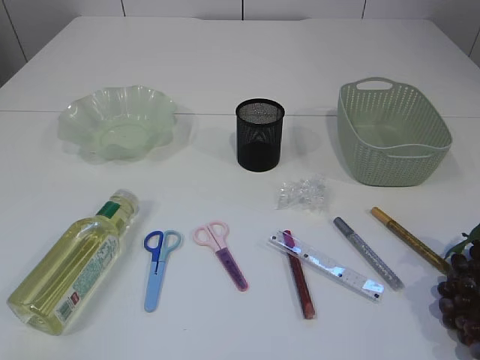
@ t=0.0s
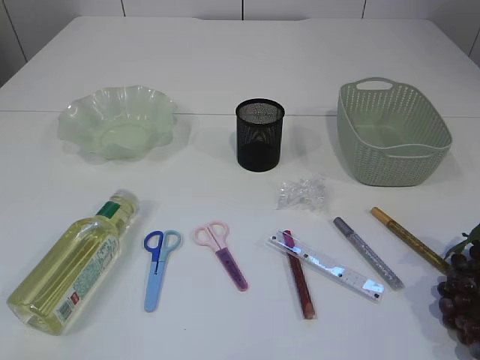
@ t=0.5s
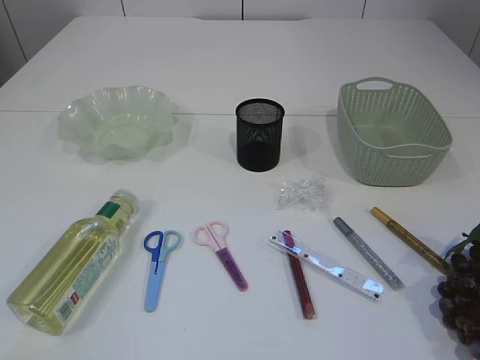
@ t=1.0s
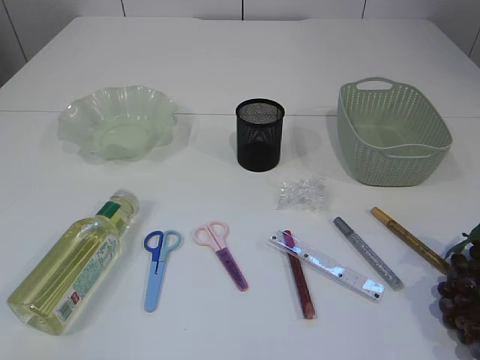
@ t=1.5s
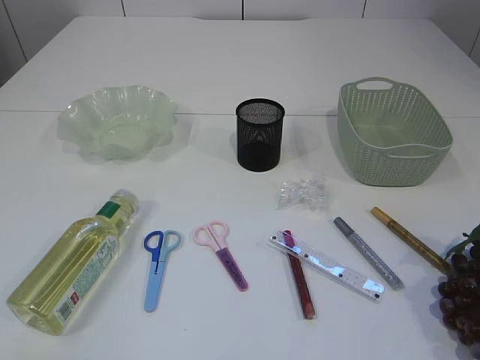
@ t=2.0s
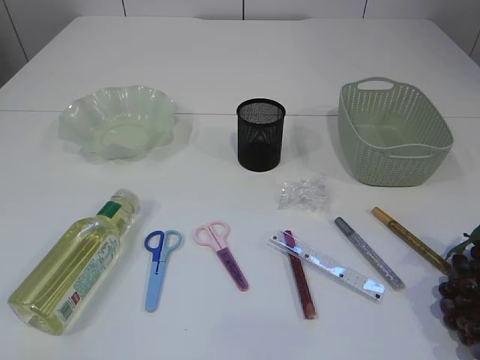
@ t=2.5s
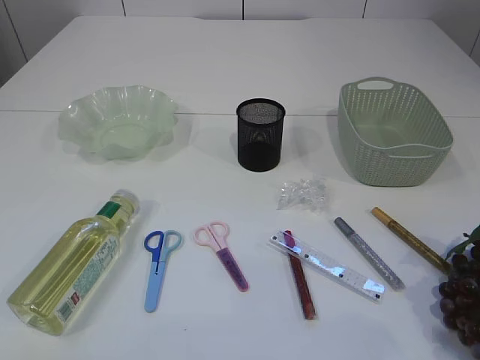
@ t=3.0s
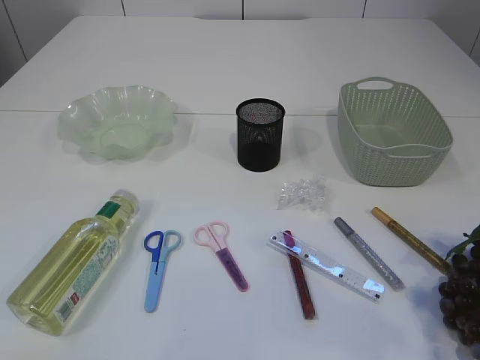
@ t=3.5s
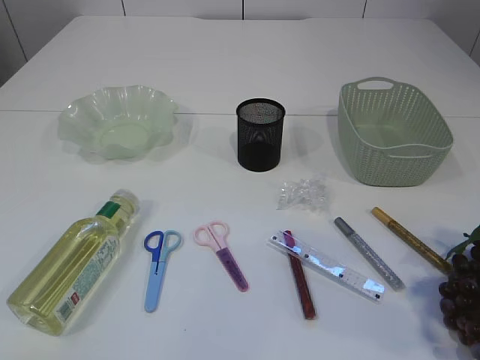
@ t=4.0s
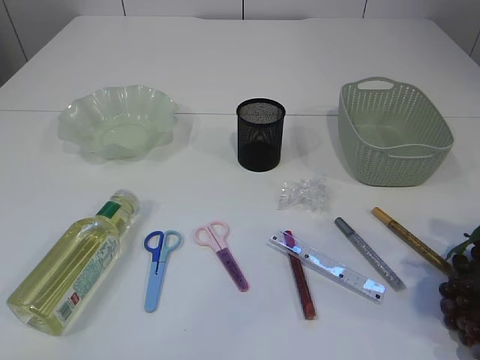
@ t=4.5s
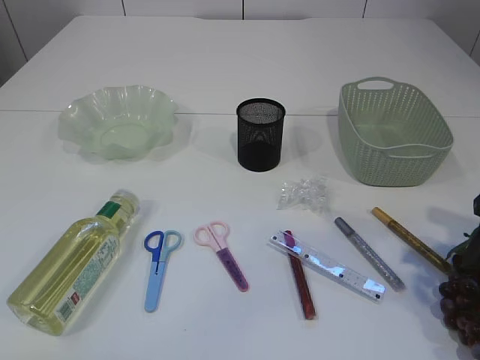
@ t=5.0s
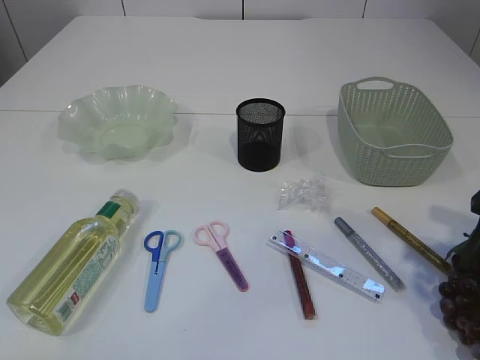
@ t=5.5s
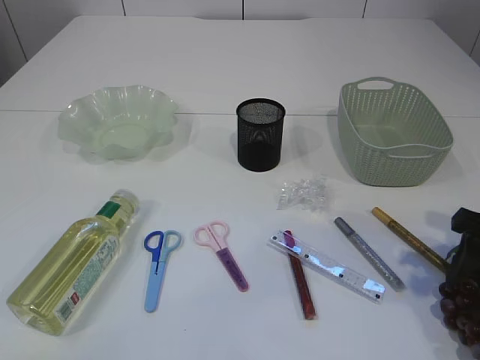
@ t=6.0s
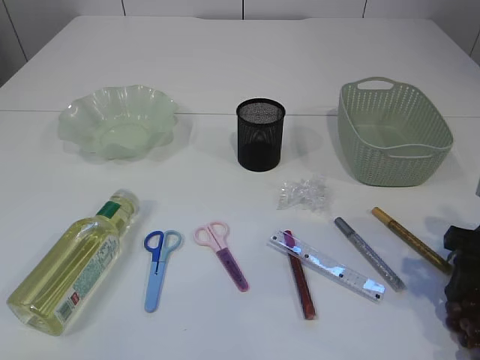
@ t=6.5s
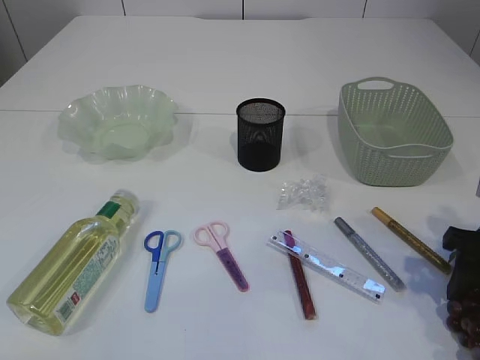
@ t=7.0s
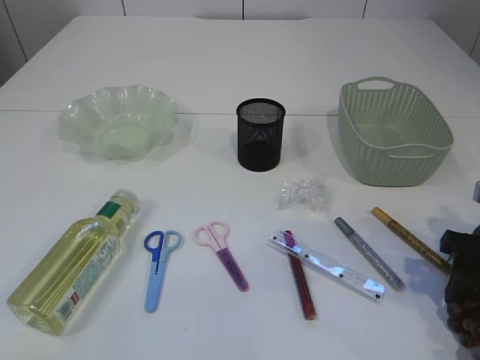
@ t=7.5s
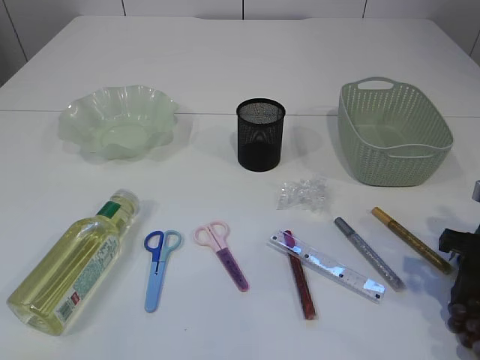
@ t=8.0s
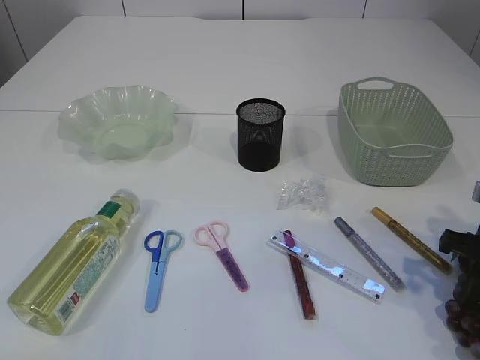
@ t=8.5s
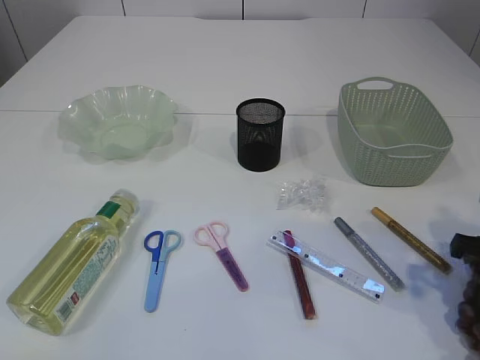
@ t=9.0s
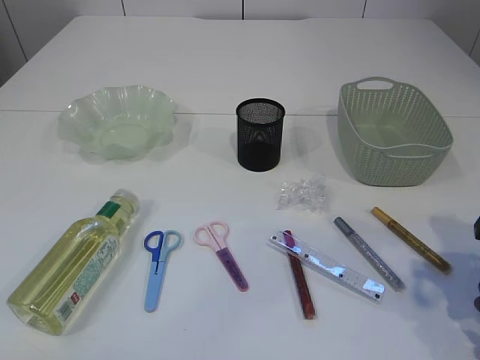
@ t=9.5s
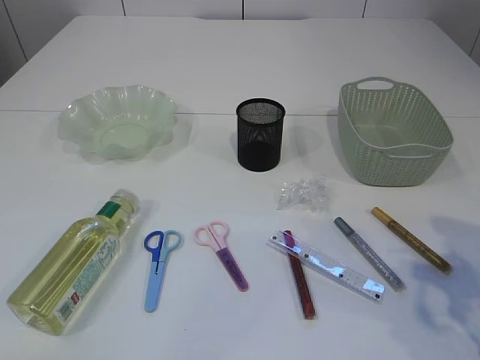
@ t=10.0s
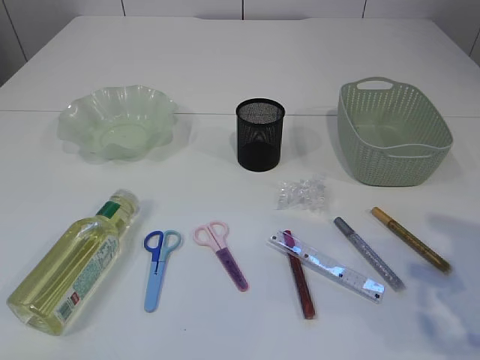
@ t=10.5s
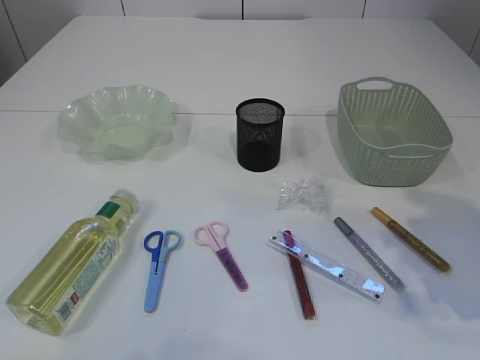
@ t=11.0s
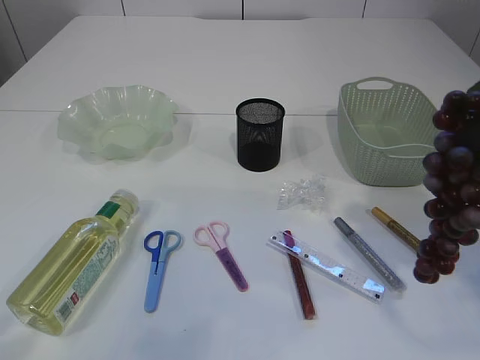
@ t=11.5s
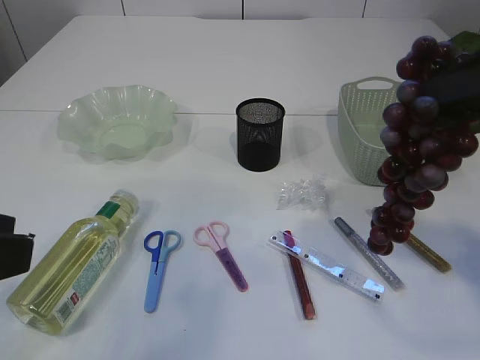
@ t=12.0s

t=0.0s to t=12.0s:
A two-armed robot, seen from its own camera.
Step, t=0.0s to t=10.5s: Pick up the grapes.
t=2.0s to t=4.0s: The right gripper is displaced forward by about 20 cm.
t=4.0s to t=6.0s: The right gripper goes about 10 cm downward and forward.
t=6.0s to t=8.0s: The grippers move only a little.
t=8.0s to t=10.0s: The right gripper heads upward, covering roughly 10 cm, and closes up.
t=10.0s to t=12.0s: The right gripper travels upward and to the left by roughly 15 cm; the left gripper heads forward and to the right, covering roughly 15 cm.

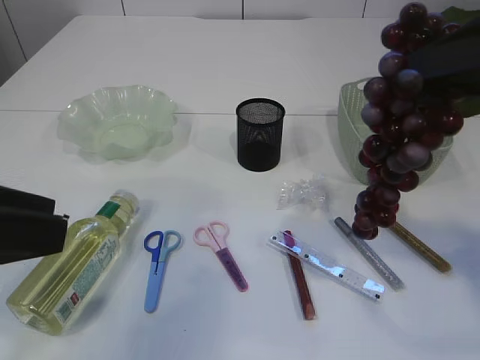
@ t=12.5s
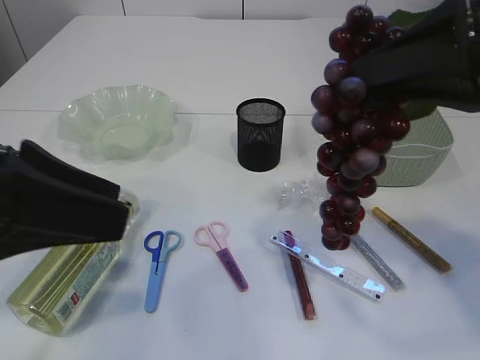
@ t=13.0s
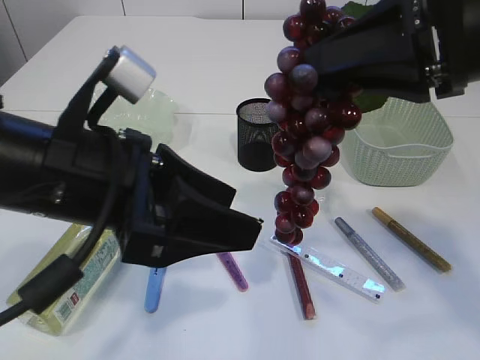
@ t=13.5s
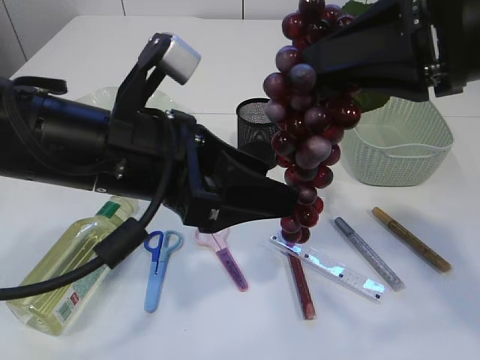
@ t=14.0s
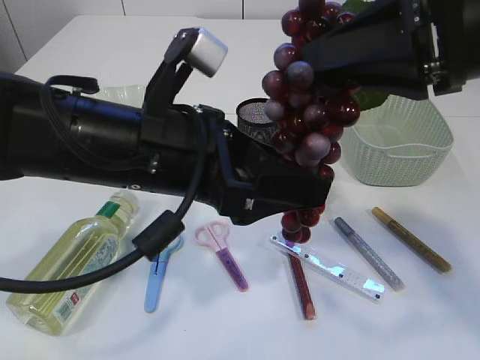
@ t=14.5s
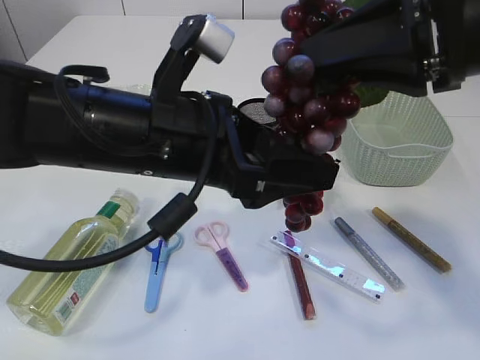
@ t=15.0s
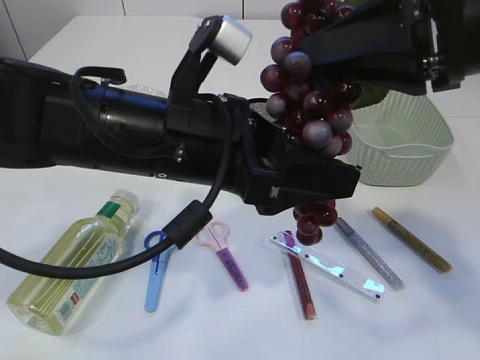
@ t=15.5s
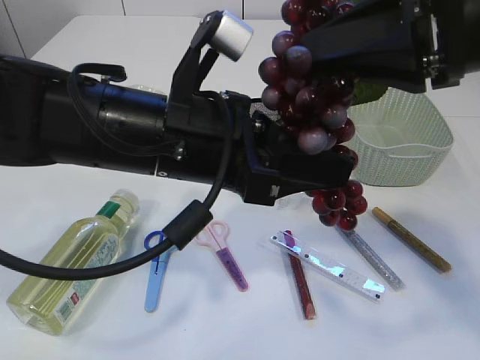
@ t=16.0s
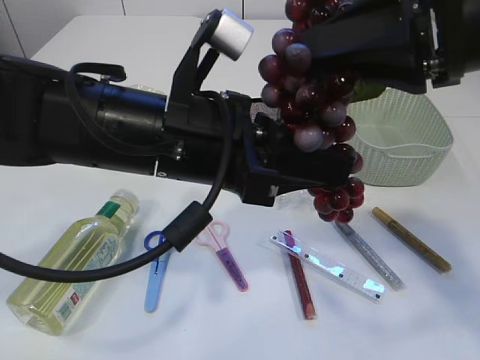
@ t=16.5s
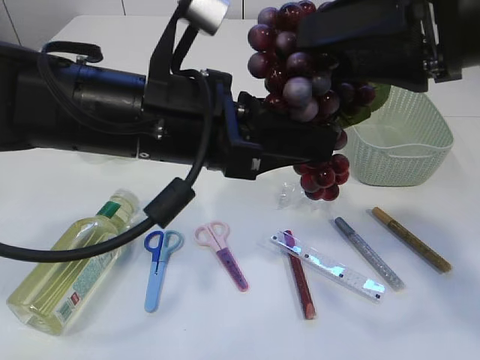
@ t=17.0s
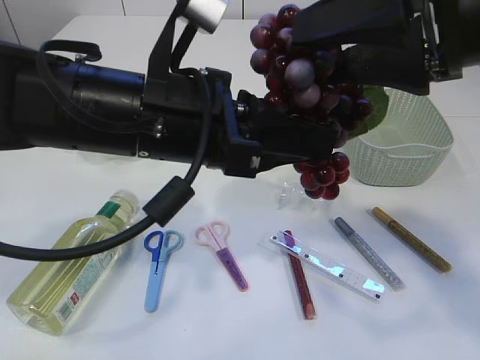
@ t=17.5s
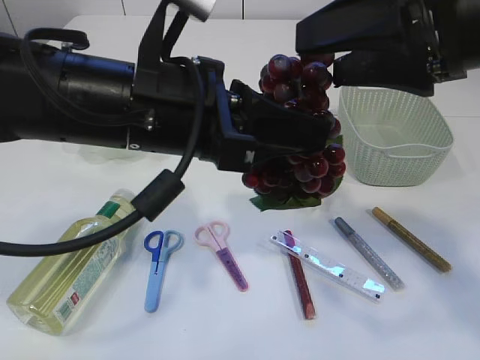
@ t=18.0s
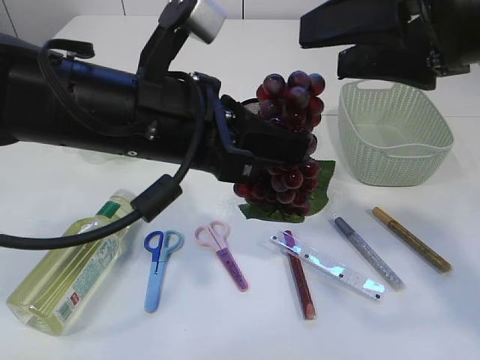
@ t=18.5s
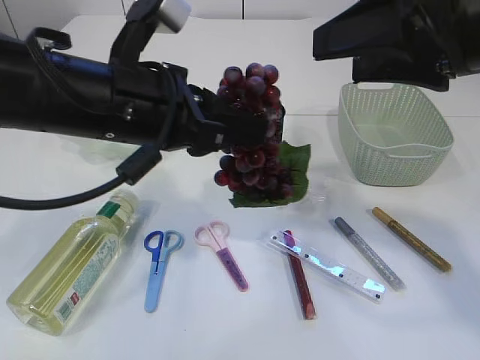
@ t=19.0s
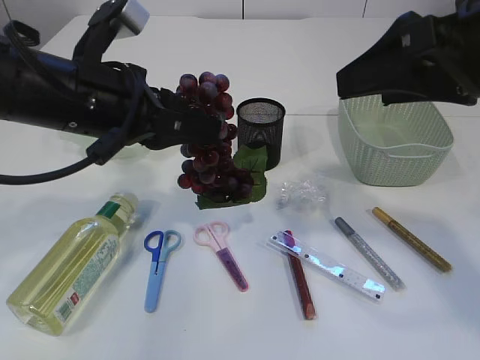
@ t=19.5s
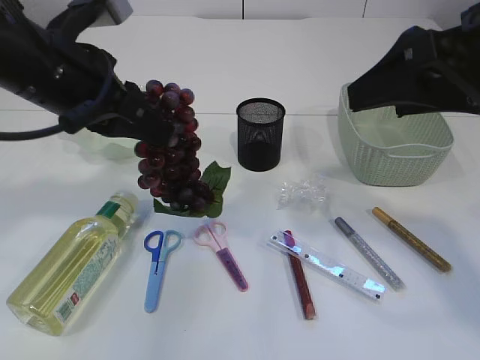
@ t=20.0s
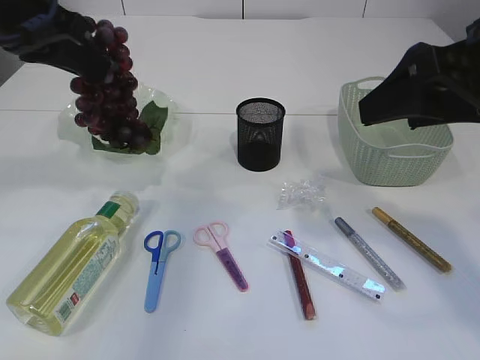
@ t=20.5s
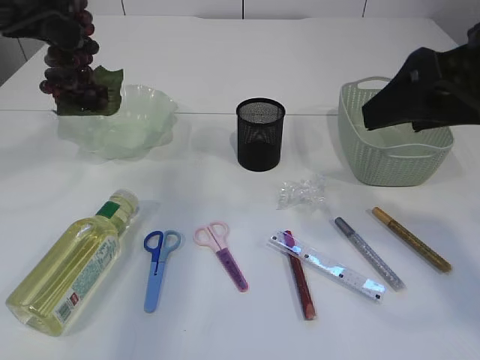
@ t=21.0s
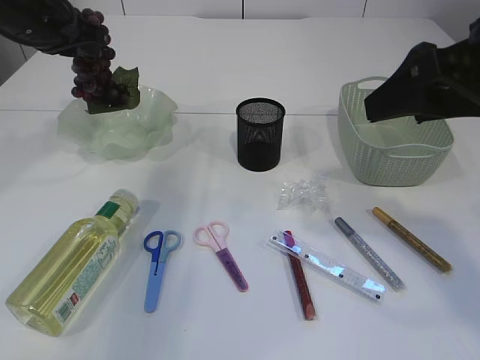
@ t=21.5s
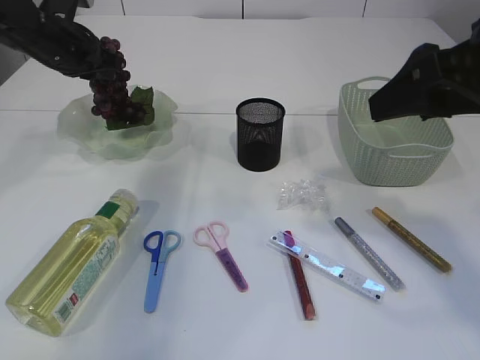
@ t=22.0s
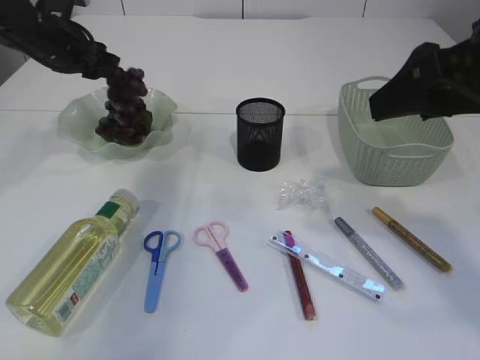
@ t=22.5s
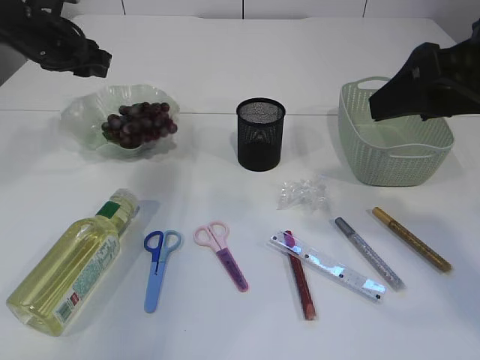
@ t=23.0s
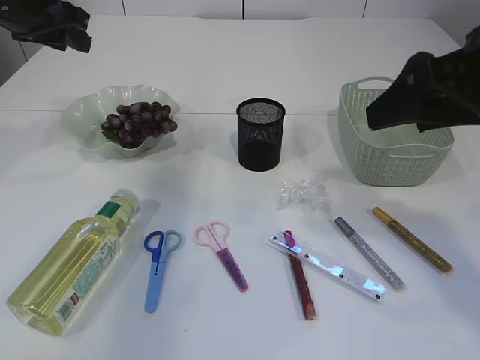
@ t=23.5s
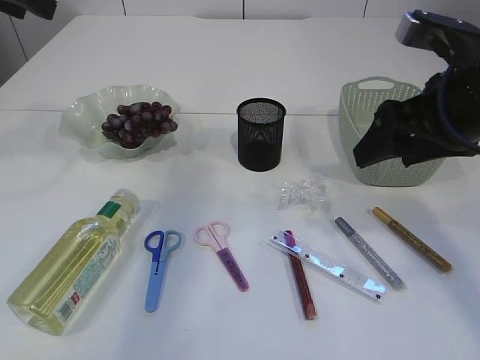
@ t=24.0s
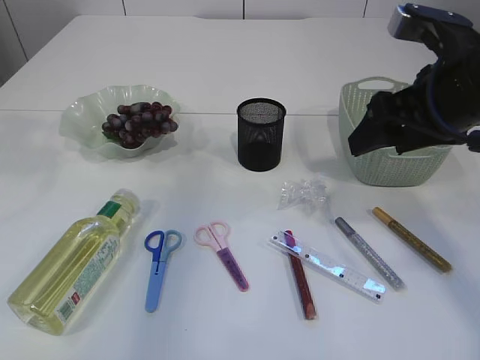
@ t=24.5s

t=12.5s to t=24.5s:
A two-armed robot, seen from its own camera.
Step, t=12.5s to t=18.5s: Hand over the grapes.
Step, t=19.0s to t=22.5s: Place the grapes in the plate.
t=12.5s to t=14.5s: The right gripper shifts some 5 cm to the left. Meanwhile the left gripper goes some 20 cm to the right and forward.
t=14.5s to t=16.5s: The left gripper closes its fingers.
t=16.5s to t=18.5s: The right gripper opens its fingers.
t=18.5s to t=20.5s: The left gripper goes roughly 20 cm to the left, forward and upward.
t=20.5s to t=22.5s: The left gripper moves forward and downward, approximately 20 cm, and opens.
t=22.5s to t=24.5s: The right gripper is displaced forward and downward by roughly 10 cm. Meanwhile the left gripper travels upward and backward by roughly 25 cm.

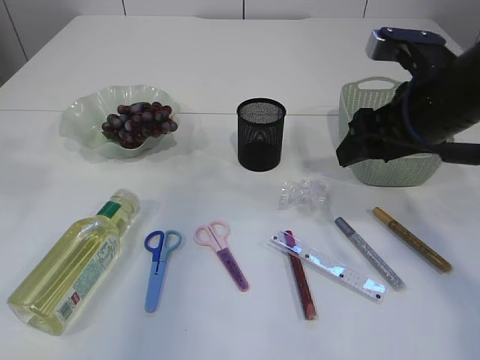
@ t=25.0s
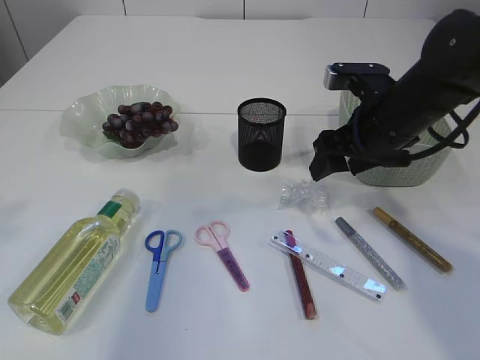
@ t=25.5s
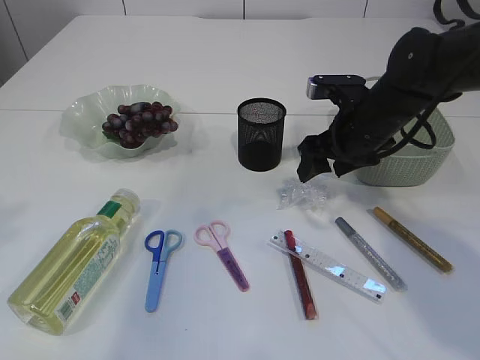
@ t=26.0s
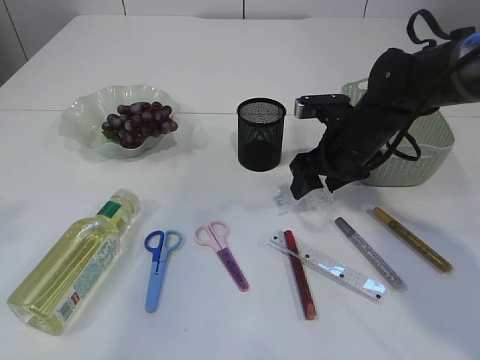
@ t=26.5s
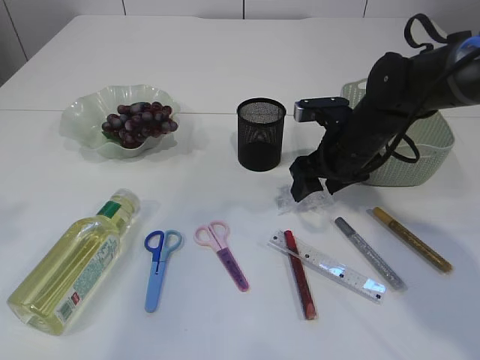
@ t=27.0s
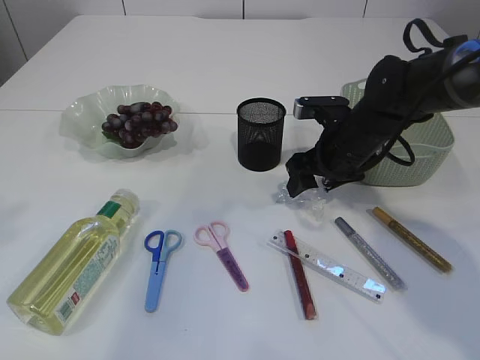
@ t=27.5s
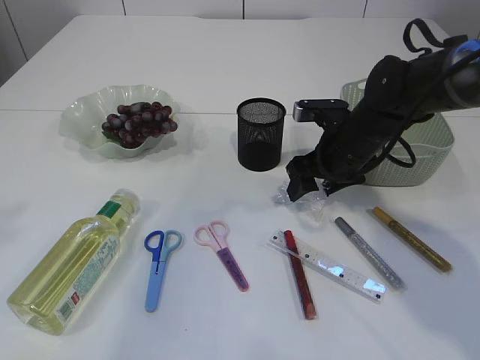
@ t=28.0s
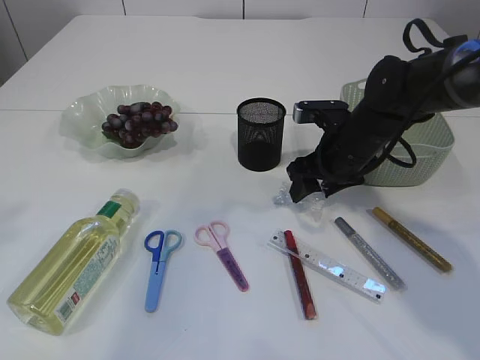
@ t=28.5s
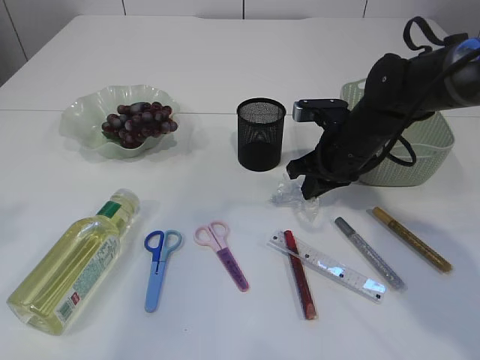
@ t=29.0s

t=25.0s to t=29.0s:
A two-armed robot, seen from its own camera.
t=25.0s to t=27.0s: The right gripper is displaced downward and forward by approximately 15 cm. The left gripper shifts some 10 cm backward.
t=27.0s to t=29.0s: The right gripper closes its fingers.
